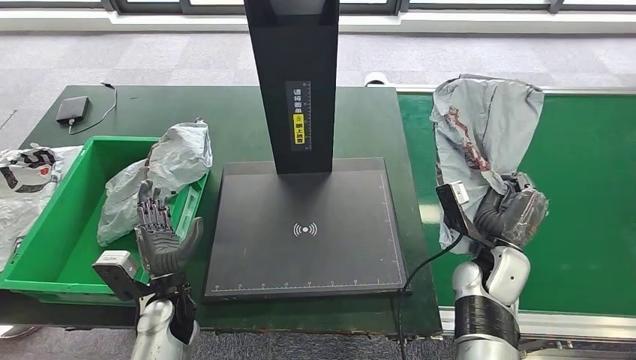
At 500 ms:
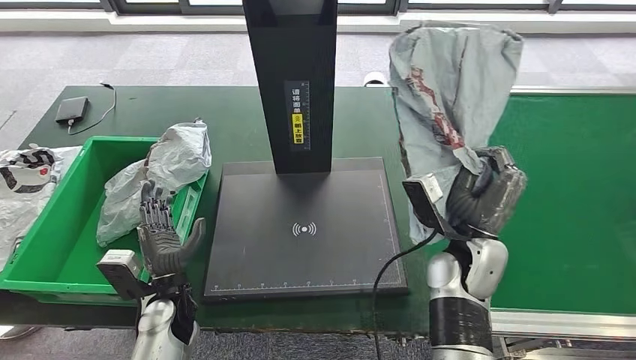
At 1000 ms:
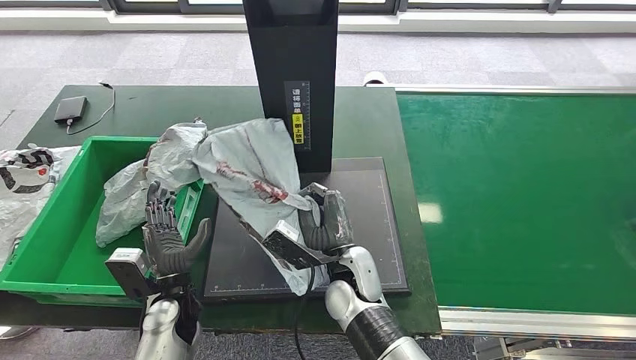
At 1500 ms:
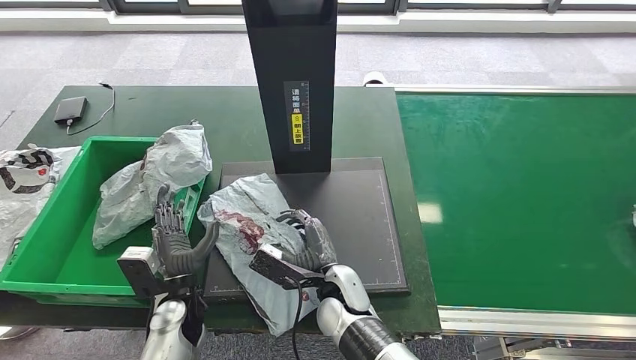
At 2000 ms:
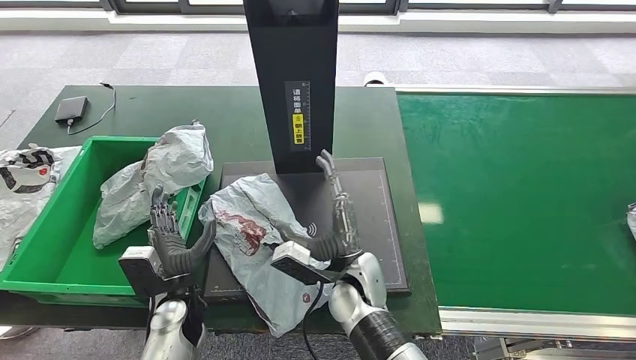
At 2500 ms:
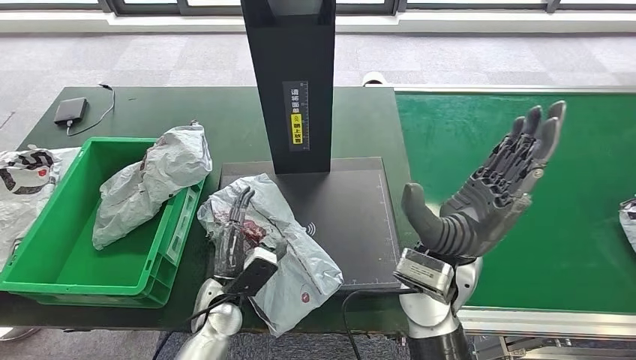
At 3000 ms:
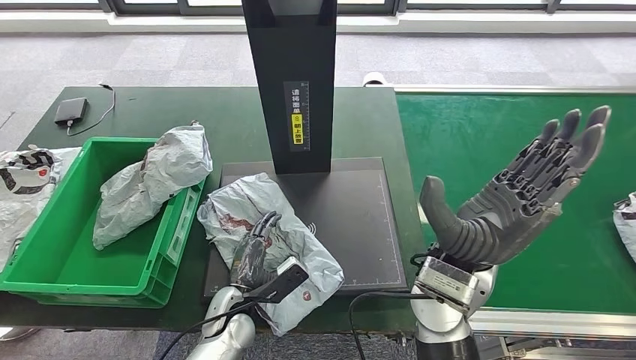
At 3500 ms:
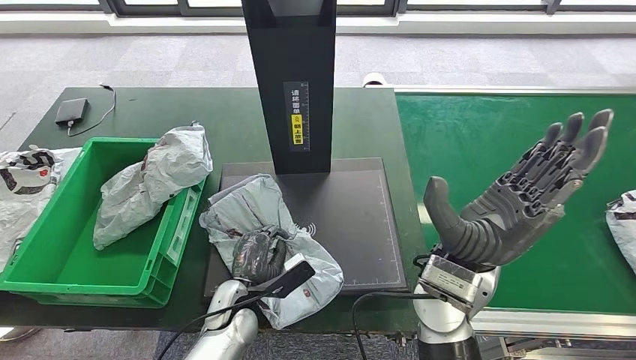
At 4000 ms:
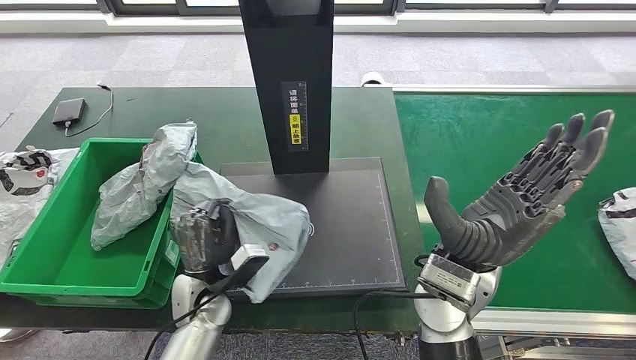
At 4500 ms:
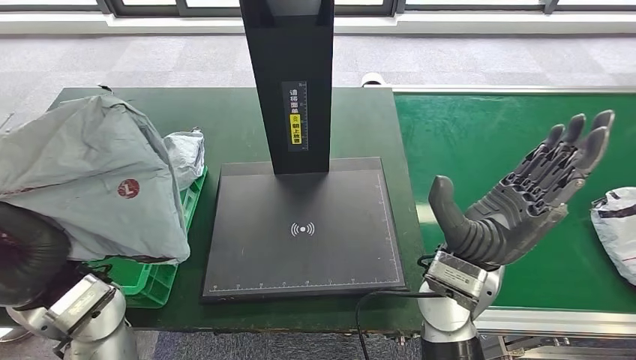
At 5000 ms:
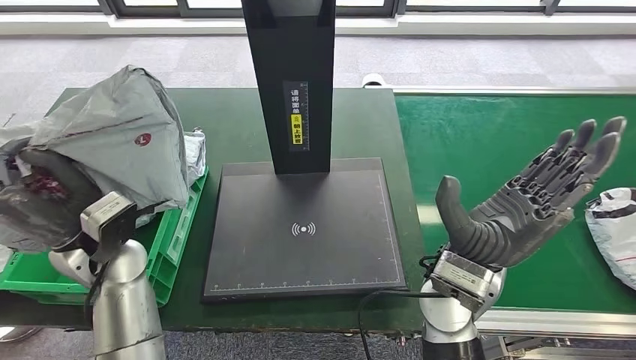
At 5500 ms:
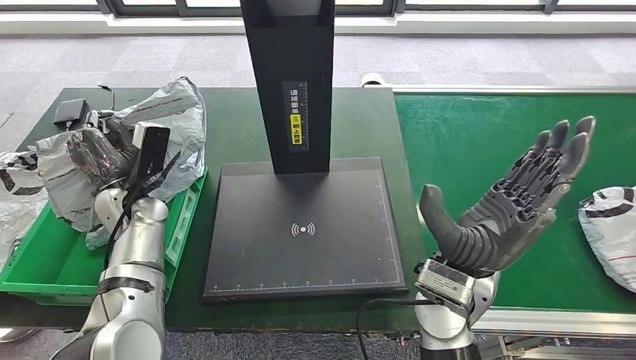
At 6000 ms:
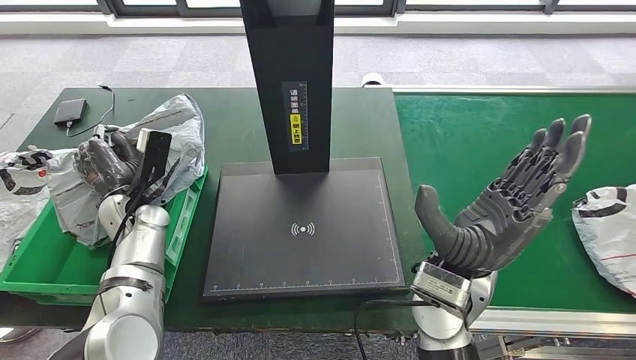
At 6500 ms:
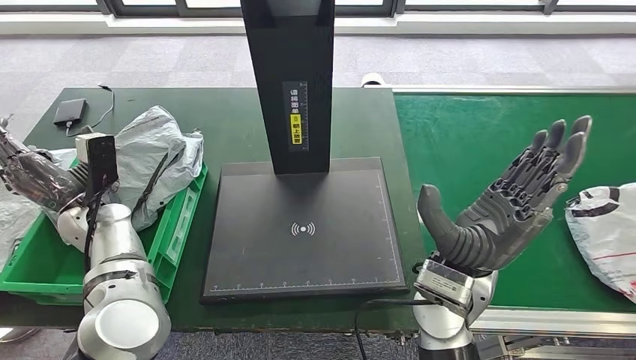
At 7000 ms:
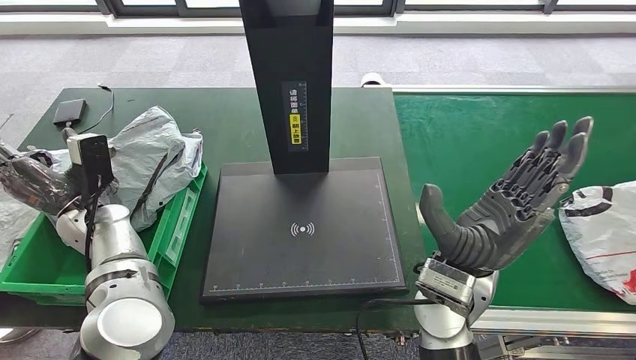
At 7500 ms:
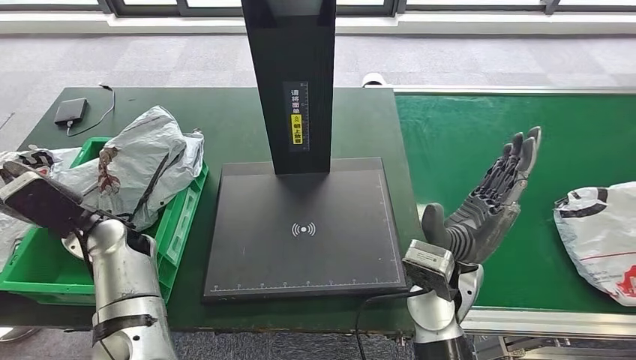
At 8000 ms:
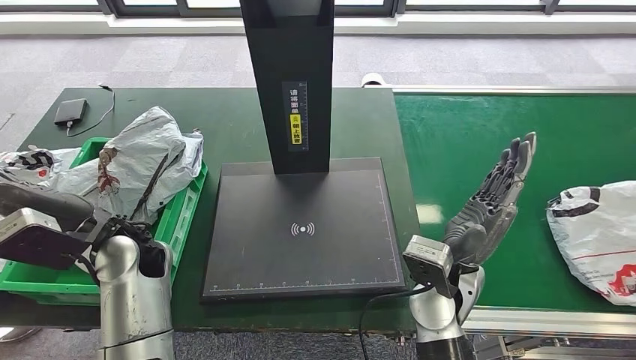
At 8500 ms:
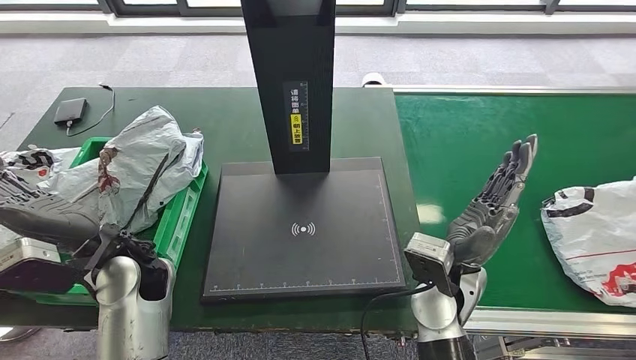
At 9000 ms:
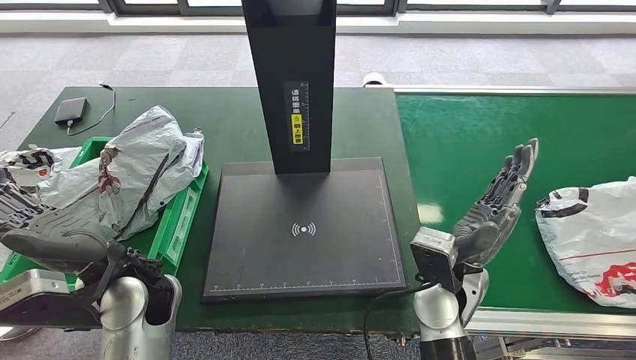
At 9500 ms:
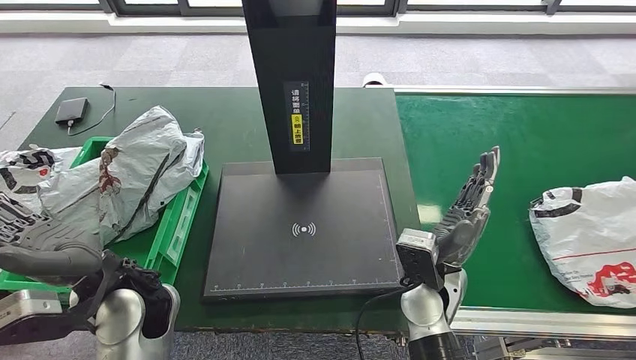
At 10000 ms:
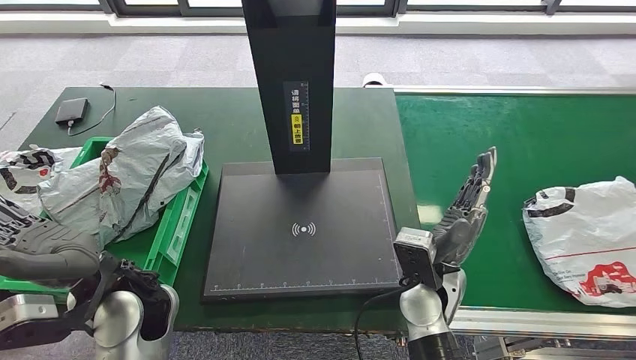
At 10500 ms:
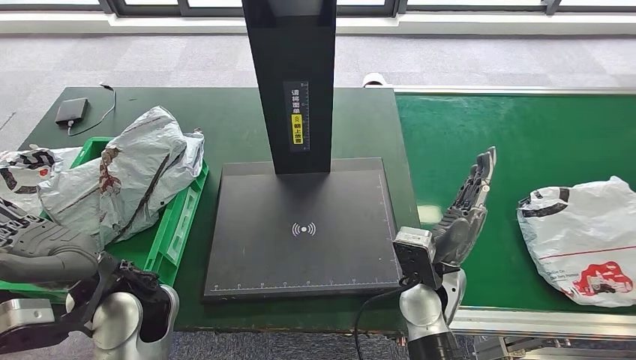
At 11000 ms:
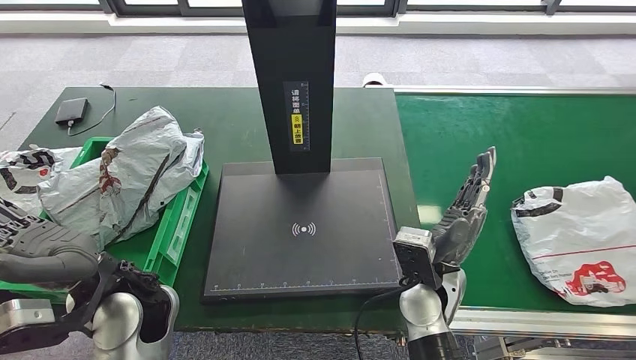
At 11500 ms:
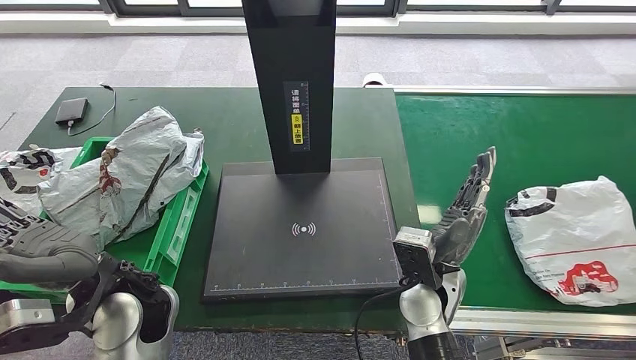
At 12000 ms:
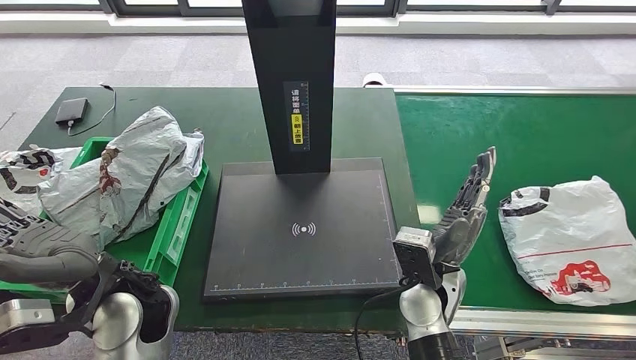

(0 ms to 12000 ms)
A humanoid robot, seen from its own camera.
Step, 1000 ms - 2500 ms: Place the parcel onto the inbound machine.
Step, 3000 ms - 5000 ms: Pick up the parcel from the inbound machine.
Step, 5500 ms - 7500 ms: Place the parcel into the delivery box.
6000 ms - 8000 ms: The left hand heads backward, upward and to the right, covering roughly 10 cm, while the right hand goes roughly 5 cm downward.
8000 ms - 10000 ms: The left hand goes about 5 cm backward.
10000 ms - 12000 ms: Both hands stay put.

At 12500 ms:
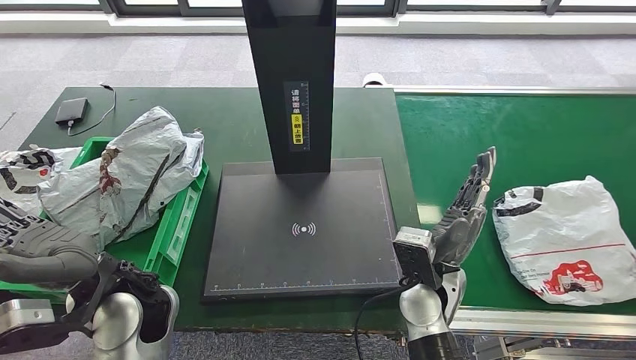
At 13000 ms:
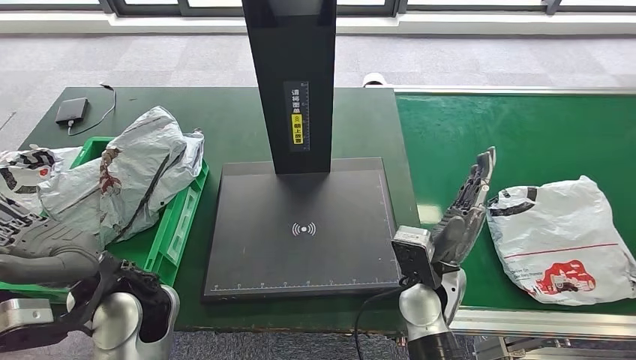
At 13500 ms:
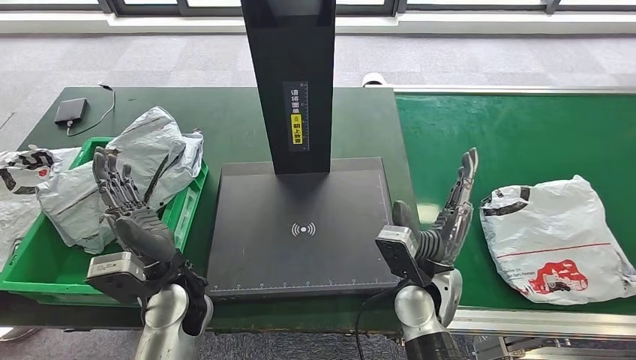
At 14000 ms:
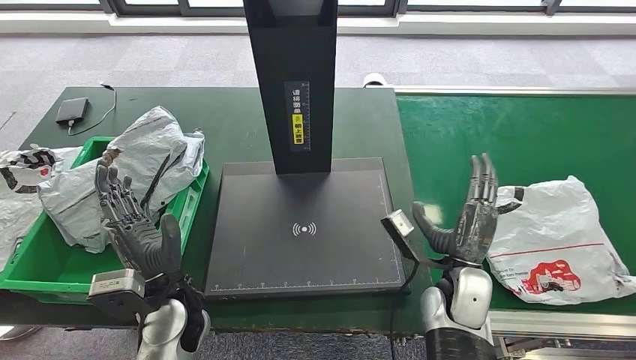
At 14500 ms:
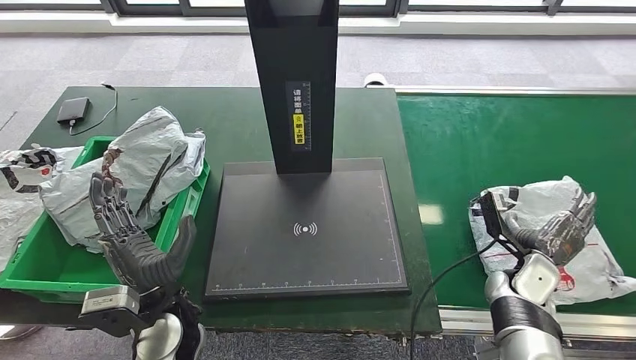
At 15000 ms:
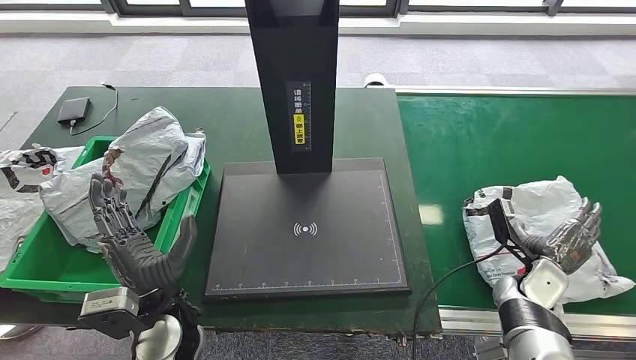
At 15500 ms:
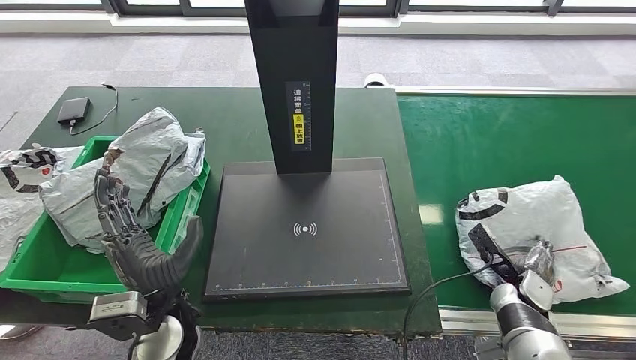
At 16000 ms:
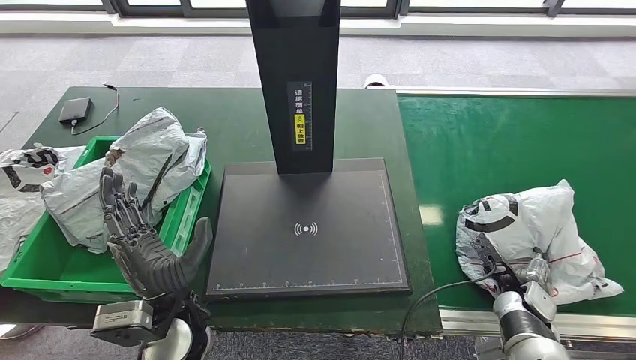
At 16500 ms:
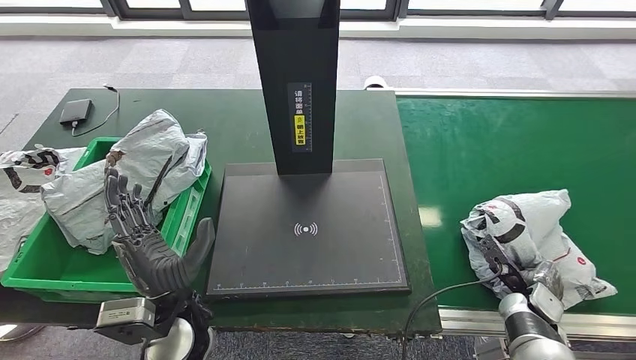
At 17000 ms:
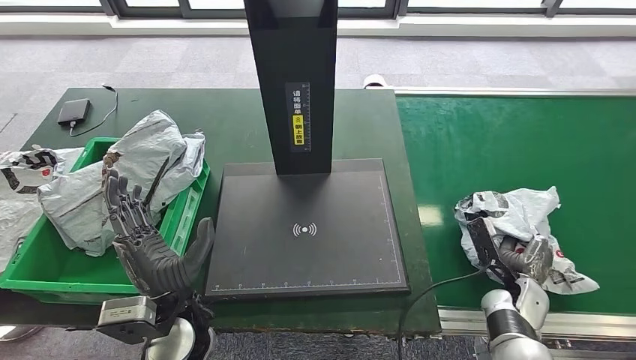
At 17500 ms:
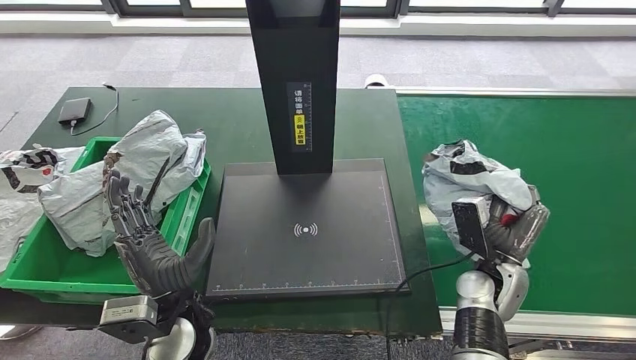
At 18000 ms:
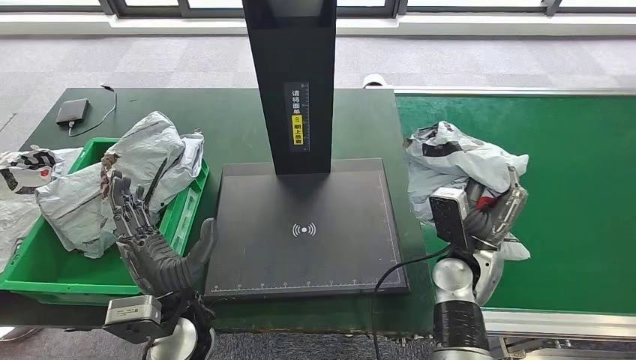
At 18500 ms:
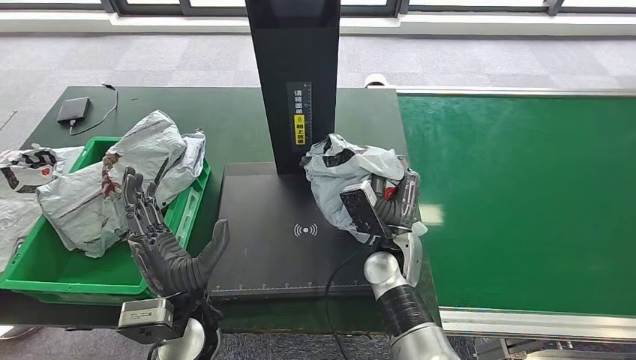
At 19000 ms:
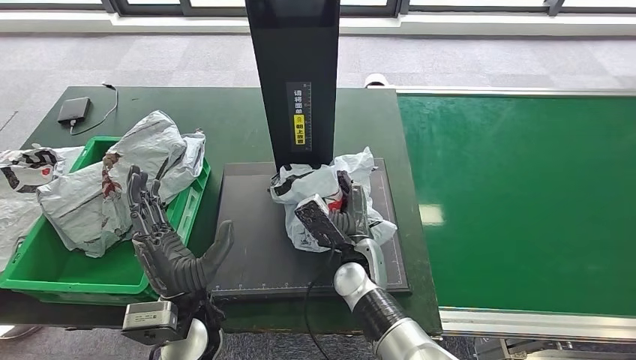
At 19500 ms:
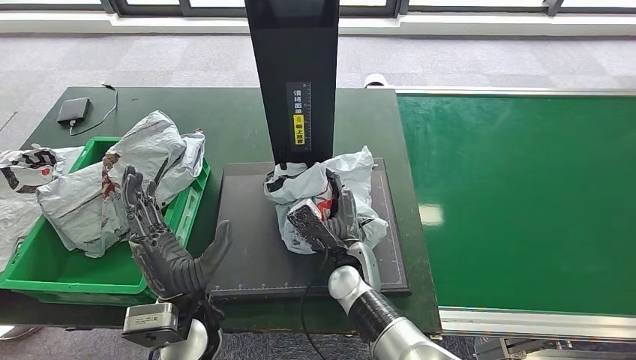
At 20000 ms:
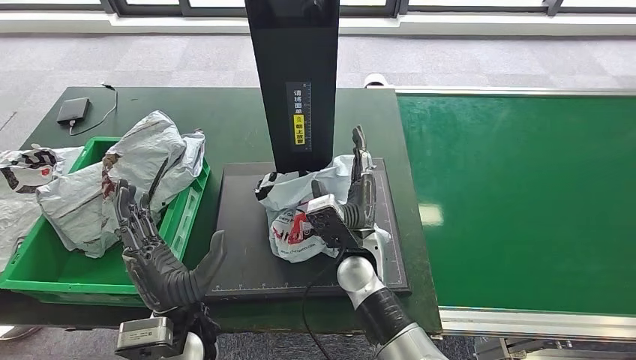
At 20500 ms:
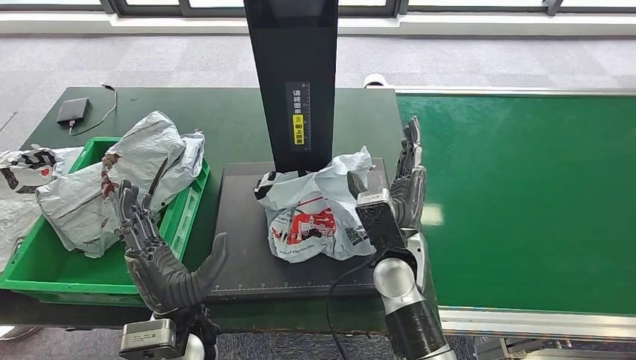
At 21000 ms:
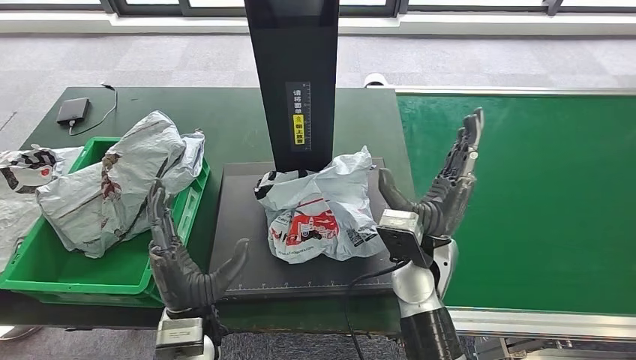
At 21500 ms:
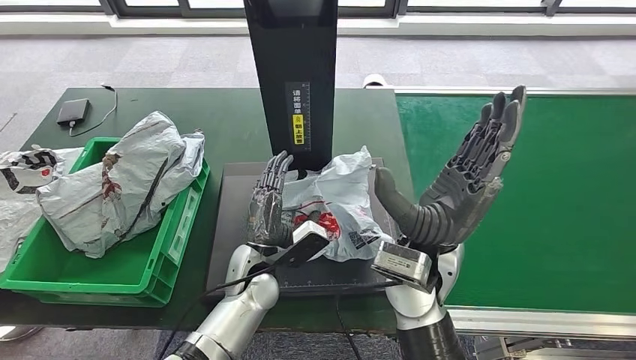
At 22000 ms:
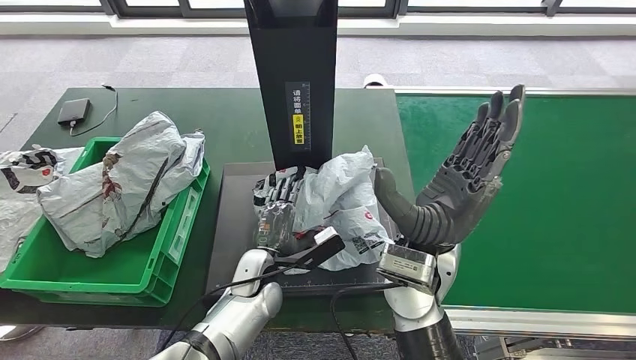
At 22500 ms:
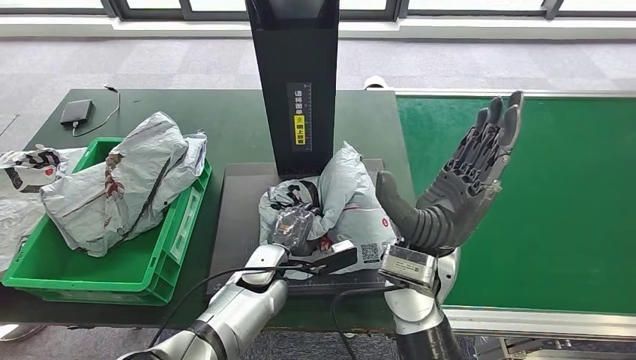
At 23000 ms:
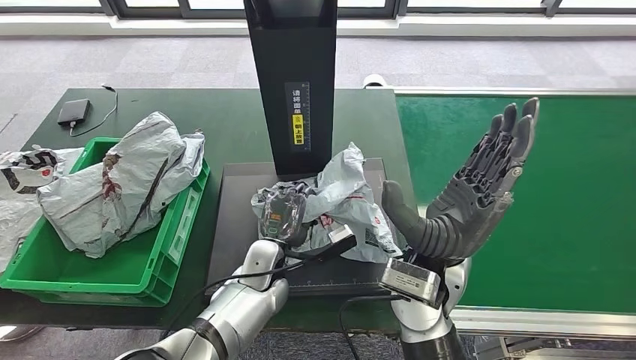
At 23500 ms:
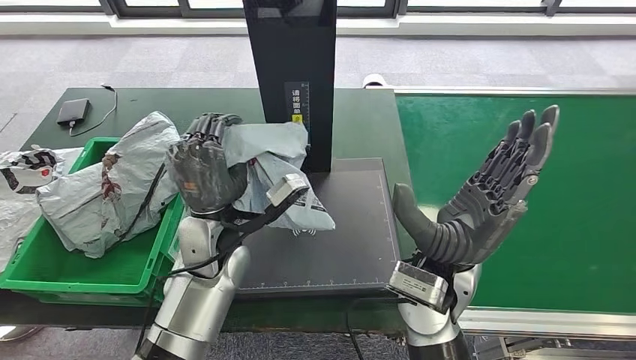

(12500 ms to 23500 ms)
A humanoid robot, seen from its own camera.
Step, 12500 ms - 18000 ms: Pick up the parcel from the conveyor belt.
Step, 18500 ms - 20000 ms: Place the parcel onto the inbound machine.
14500 ms - 16000 ms: The right hand is displaced downward by some 5 cm.
20000 ms - 21500 ms: The left hand travels forward, to the right and downward by some 15 cm; the right hand travels upward by roughly 10 cm.
